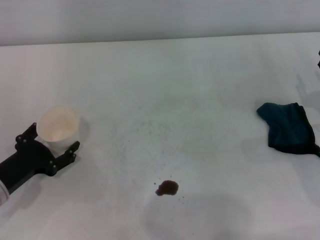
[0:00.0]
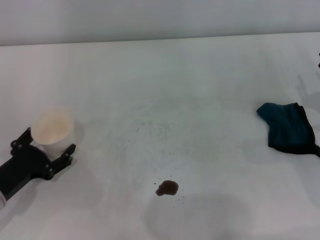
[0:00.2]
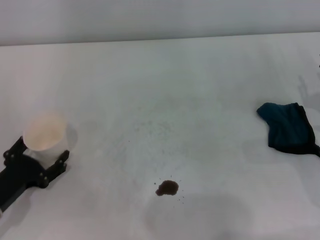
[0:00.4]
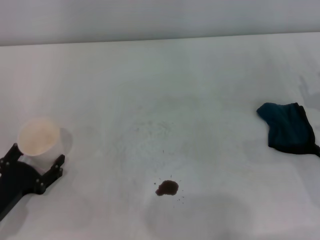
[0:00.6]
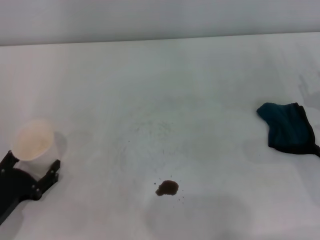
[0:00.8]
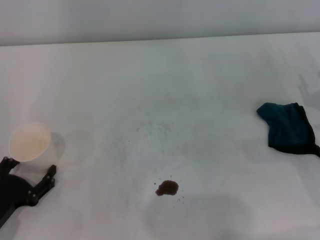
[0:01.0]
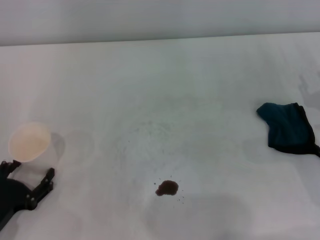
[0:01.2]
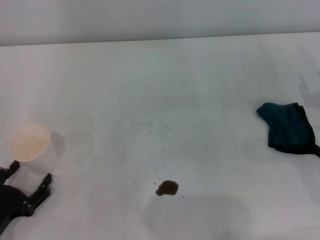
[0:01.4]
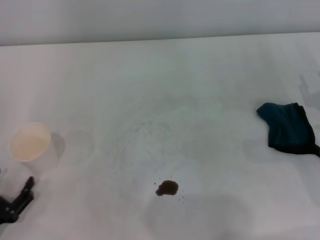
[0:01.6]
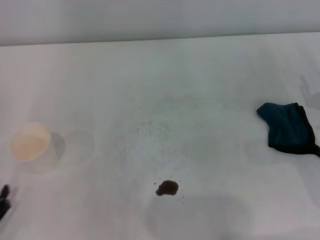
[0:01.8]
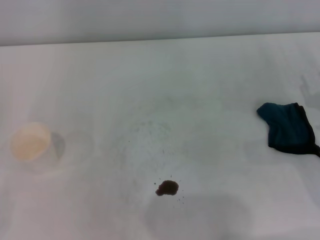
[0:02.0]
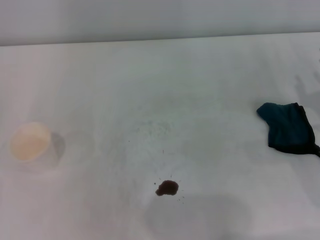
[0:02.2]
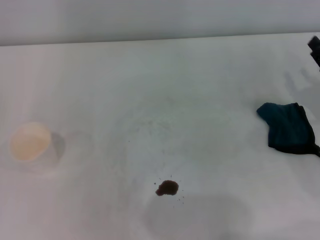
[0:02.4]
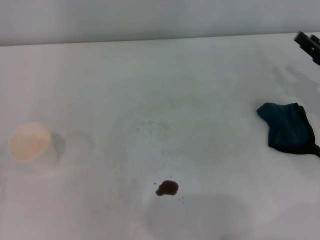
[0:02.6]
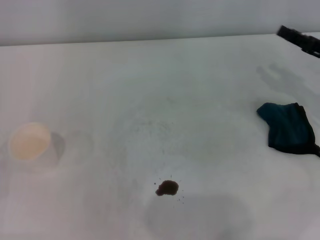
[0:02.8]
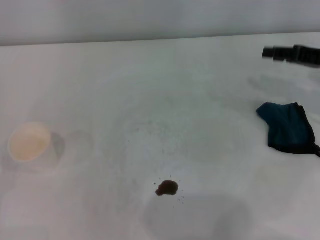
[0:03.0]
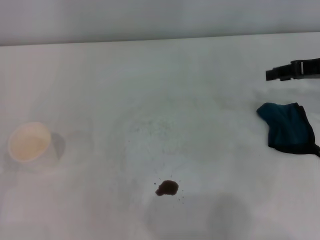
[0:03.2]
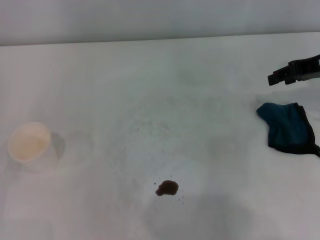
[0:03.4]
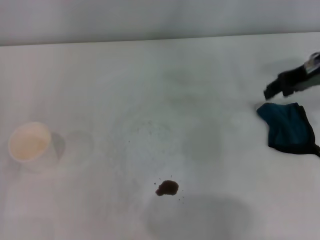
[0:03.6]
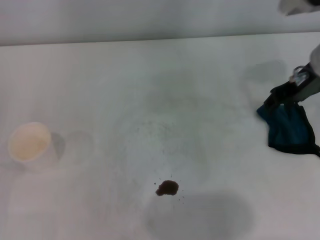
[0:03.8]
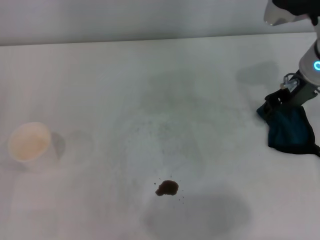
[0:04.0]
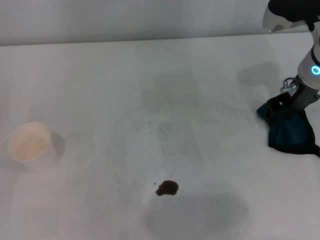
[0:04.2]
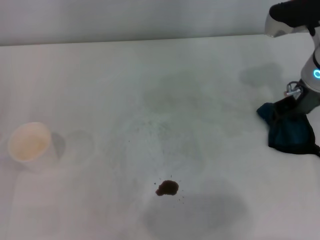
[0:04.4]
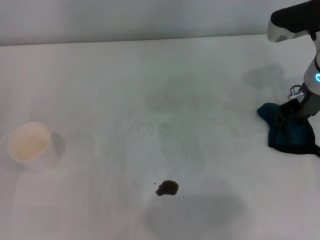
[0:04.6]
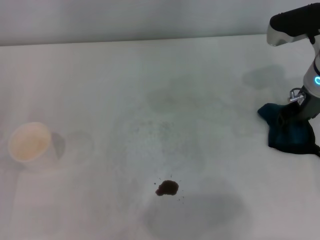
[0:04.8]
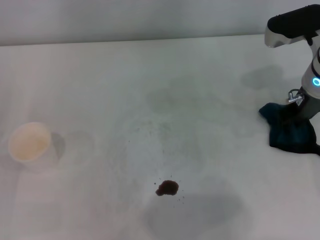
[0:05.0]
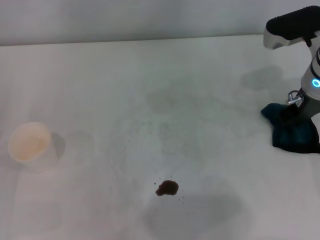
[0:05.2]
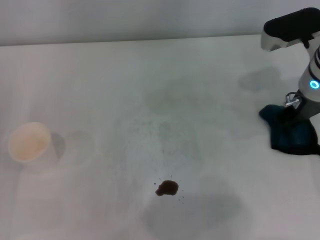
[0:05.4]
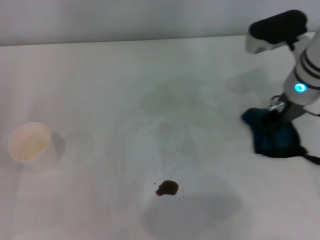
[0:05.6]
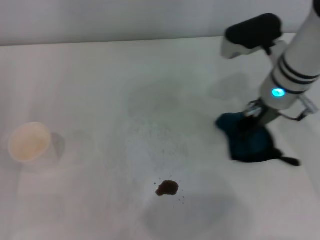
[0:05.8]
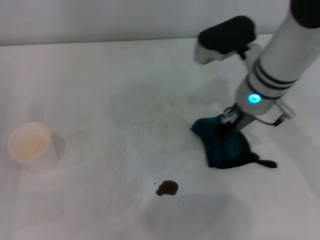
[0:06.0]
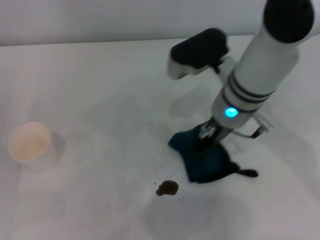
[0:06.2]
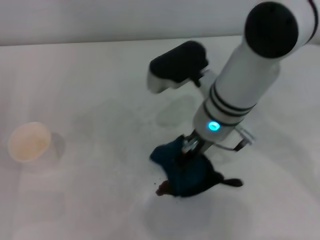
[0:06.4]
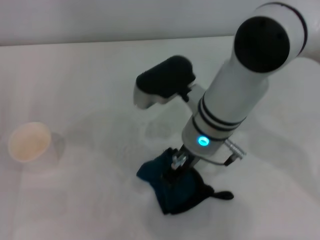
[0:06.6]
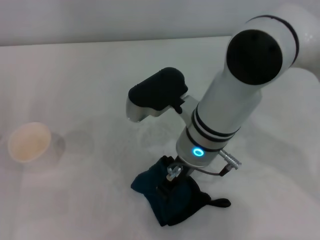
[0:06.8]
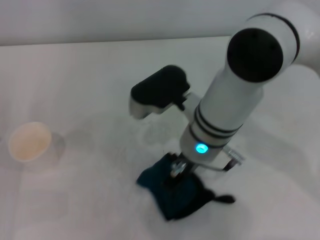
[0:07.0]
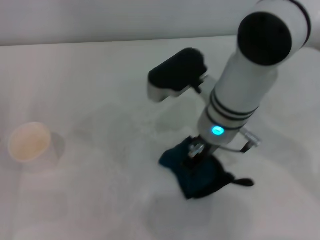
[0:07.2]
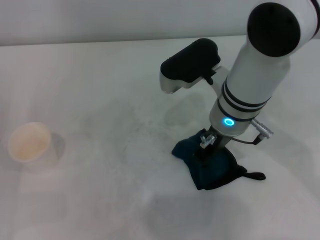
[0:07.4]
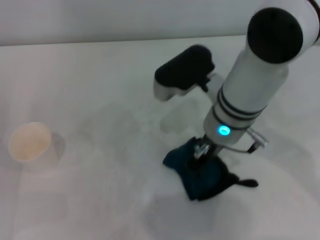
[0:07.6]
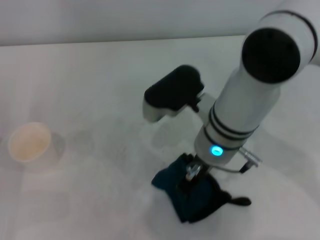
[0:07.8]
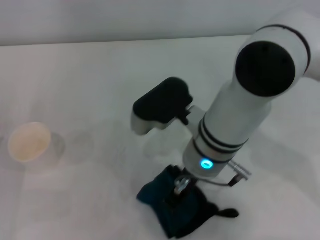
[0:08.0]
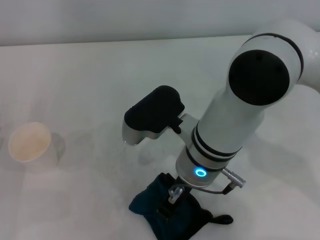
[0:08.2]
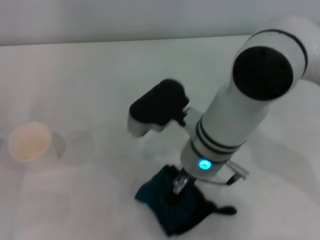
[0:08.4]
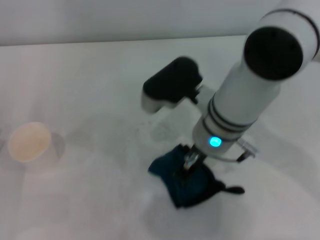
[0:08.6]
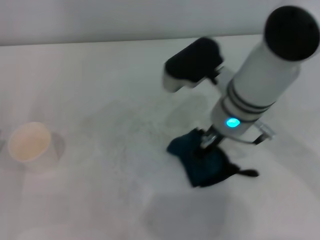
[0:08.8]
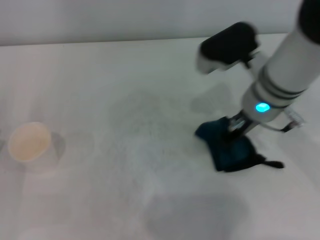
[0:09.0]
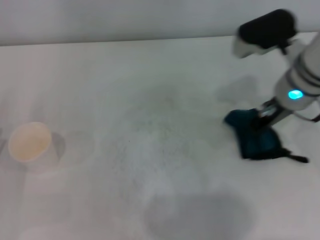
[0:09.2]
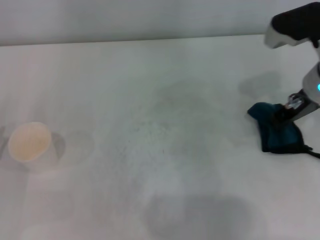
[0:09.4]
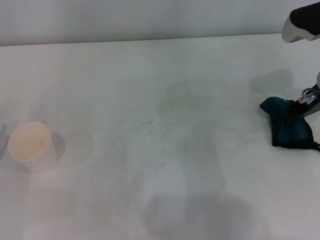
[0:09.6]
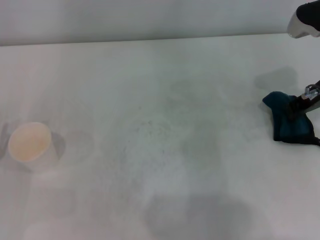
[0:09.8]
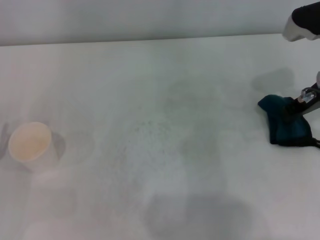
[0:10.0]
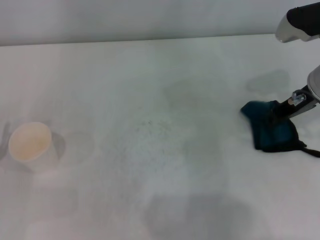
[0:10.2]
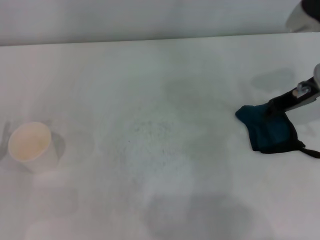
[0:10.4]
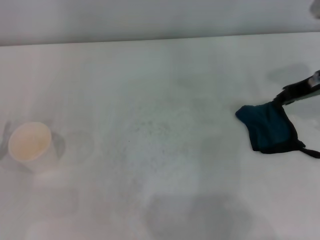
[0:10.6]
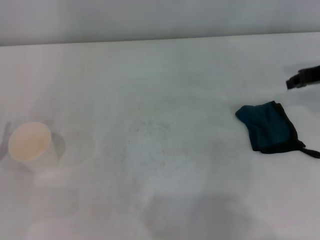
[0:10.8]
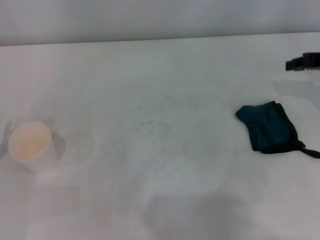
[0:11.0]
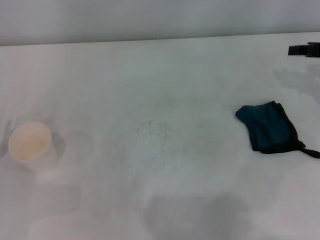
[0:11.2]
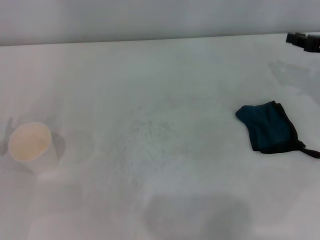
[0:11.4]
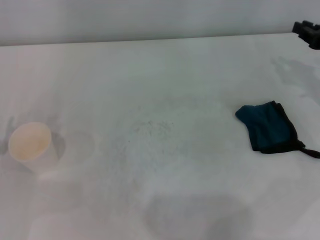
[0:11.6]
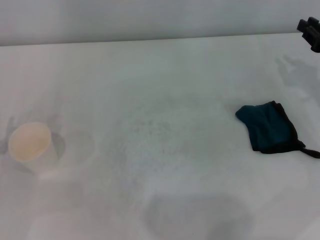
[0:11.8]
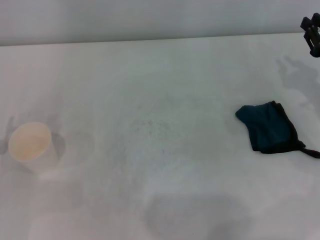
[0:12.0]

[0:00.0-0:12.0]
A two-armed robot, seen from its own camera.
Step, 0:01.0 to 0:05.2: Grasp the rag with the right gripper.
Step, 0:05.4 to 0:09.4: Wipe the stains off the table with the right gripper.
Step, 0:09.6 to 0:10.2: Place the rag on the table with the right gripper.
0:00.0 to 0:01.6: The left gripper moves backward, some 10 cm, and opens up.
0:01.6 to 0:03.0: The left gripper moves approximately 5 cm; the right gripper shifts about 10 cm upward and forward.
0:03.0 to 0:04.4: The right gripper heads to the left, covering approximately 10 cm.
0:04.4 to 0:06.0: The right gripper shifts approximately 10 cm to the left, and closes up.
0:06.0 to 0:07.6: The right gripper is displaced to the left by approximately 5 cm.
0:07.6 to 0:09.0: The right gripper is displaced to the right by some 5 cm.
0:09.0 to 0:10.4: The right gripper moves to the right, some 10 cm.
0:10.4 to 0:12.0: The right gripper is displaced to the right and downward by approximately 10 cm.

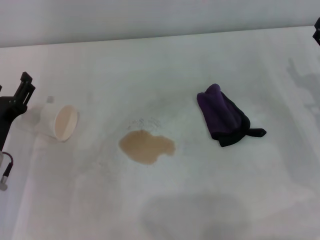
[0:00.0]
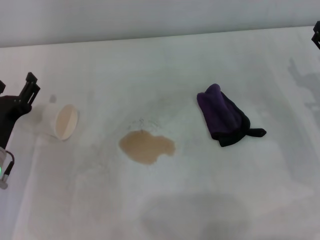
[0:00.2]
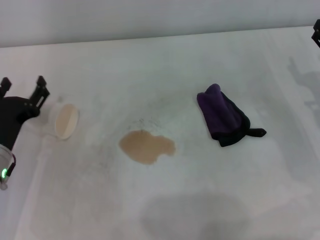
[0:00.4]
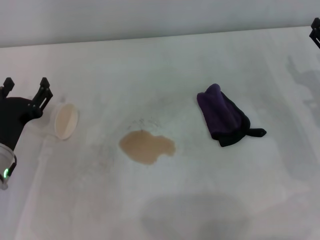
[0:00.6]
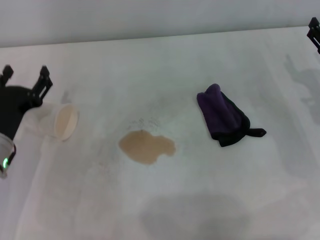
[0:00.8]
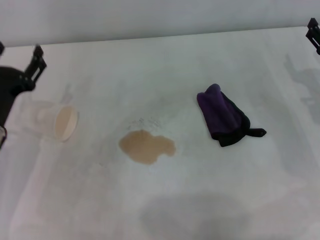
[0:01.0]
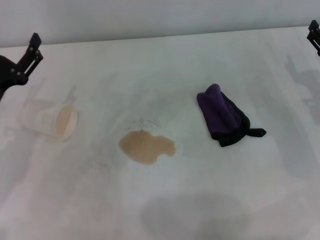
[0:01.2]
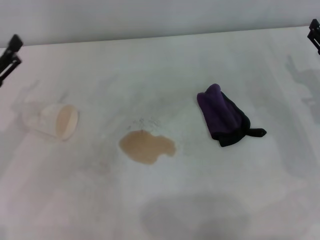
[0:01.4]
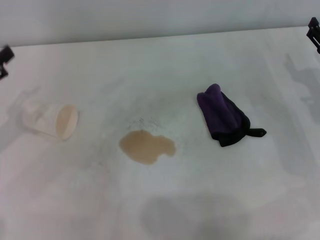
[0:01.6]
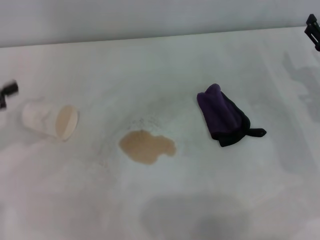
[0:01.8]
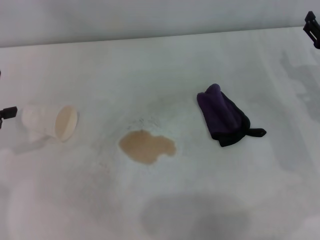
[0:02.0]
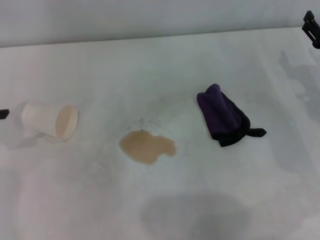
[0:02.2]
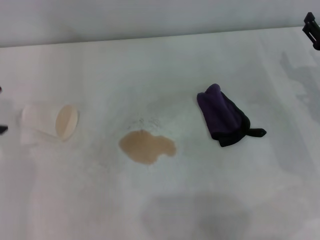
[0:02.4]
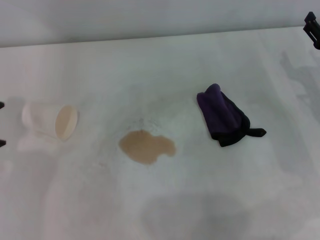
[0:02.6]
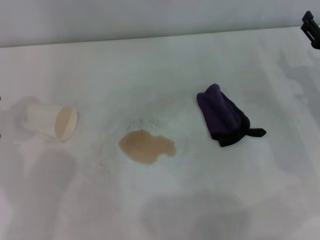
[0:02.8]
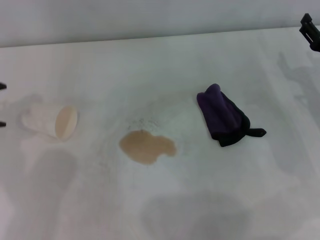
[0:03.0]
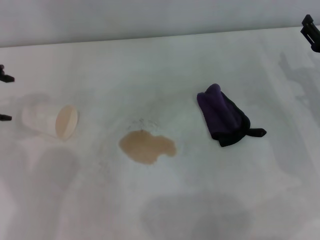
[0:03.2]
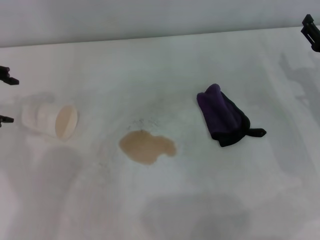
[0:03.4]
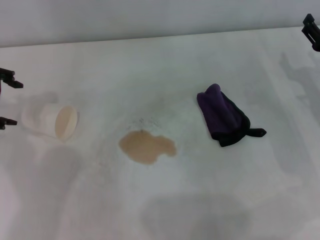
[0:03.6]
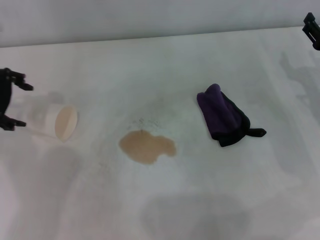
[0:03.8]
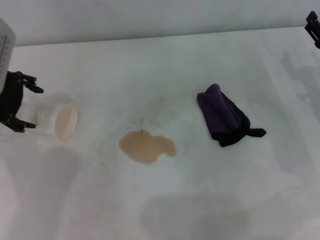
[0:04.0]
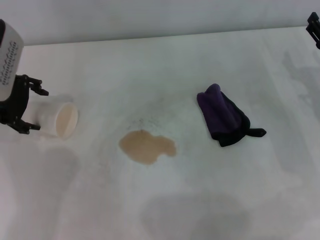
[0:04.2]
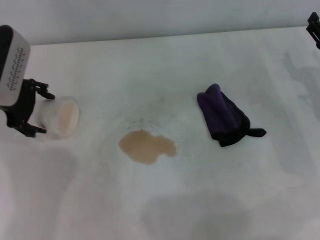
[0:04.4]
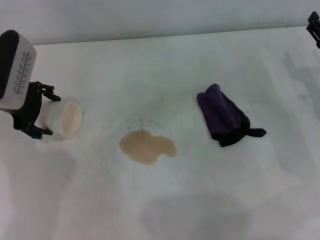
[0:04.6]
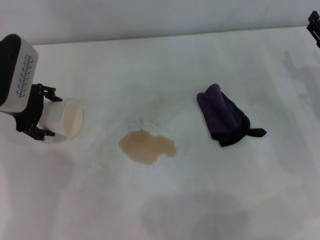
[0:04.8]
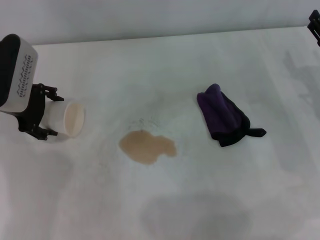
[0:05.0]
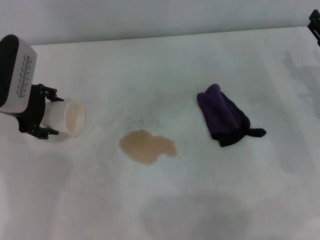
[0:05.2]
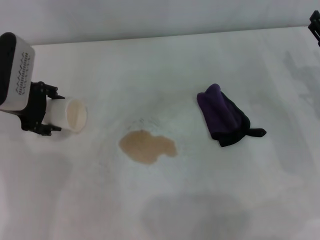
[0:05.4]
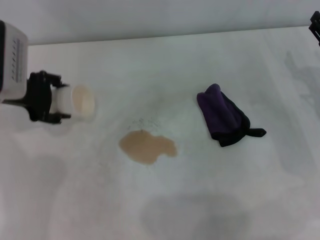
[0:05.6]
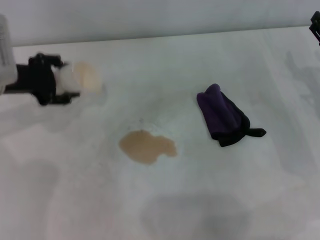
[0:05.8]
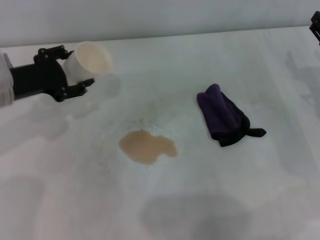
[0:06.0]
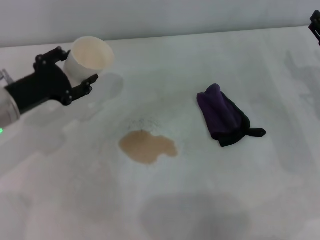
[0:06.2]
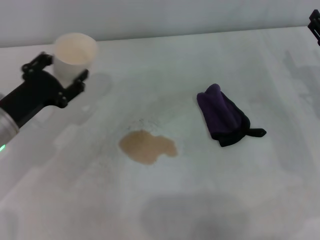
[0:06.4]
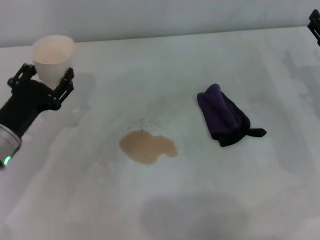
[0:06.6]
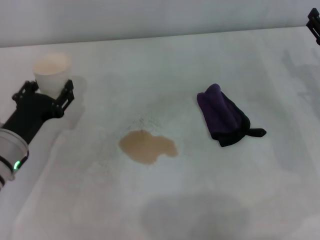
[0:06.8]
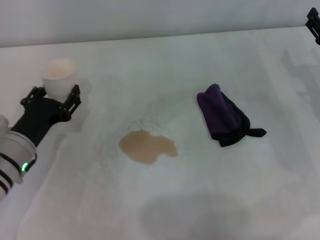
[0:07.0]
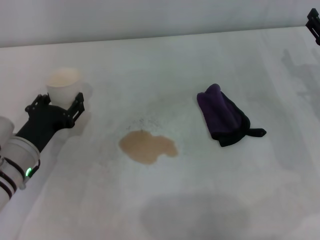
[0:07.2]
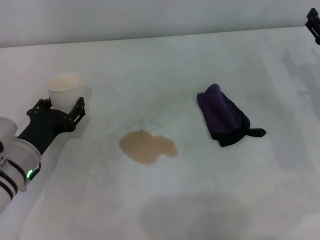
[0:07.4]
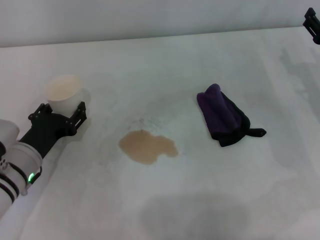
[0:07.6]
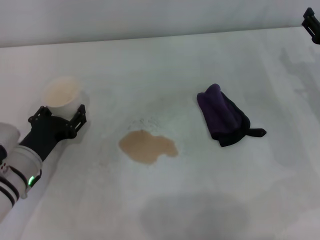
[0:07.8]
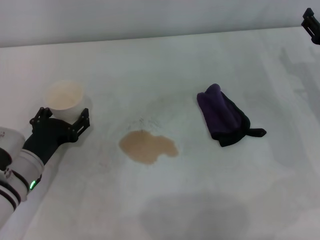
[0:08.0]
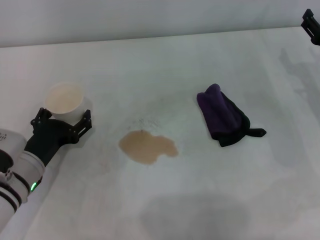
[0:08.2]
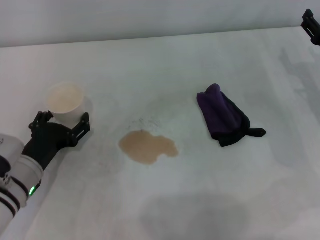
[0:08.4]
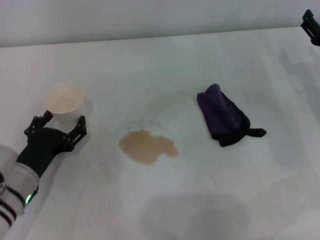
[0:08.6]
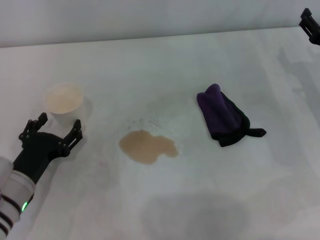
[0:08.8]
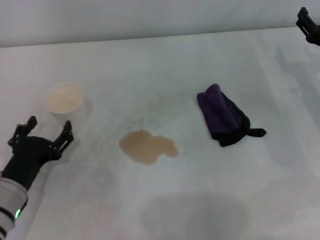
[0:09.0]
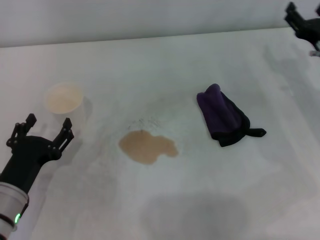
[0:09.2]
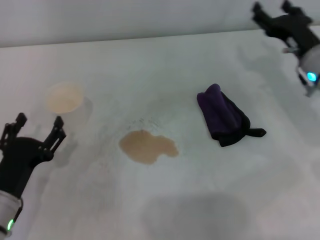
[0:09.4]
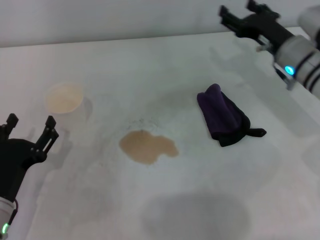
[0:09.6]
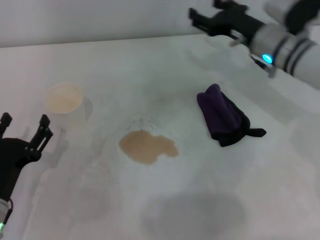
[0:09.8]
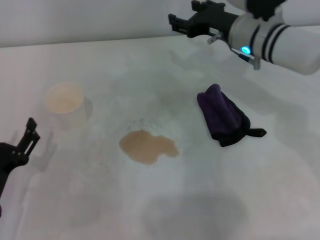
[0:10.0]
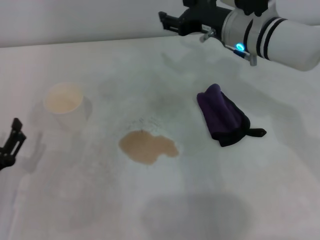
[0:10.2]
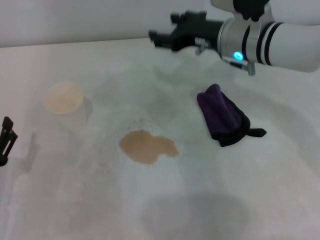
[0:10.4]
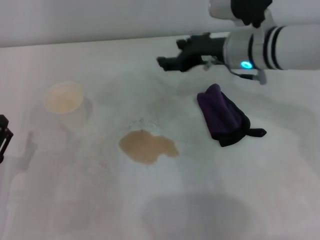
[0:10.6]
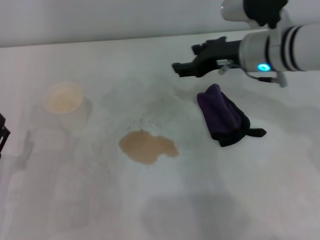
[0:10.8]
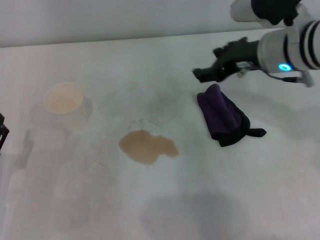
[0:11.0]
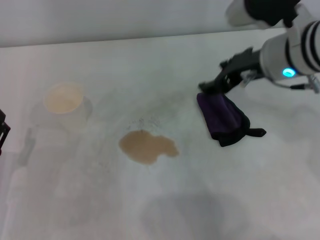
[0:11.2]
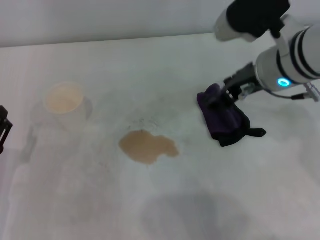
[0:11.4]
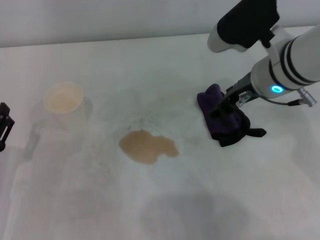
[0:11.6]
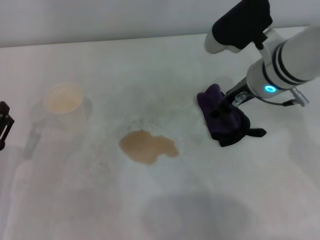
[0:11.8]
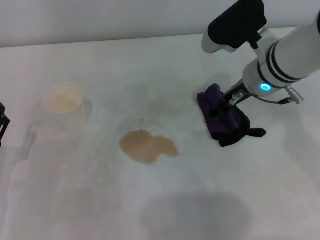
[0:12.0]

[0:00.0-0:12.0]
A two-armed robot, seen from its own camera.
Step, 0:00.0 to 0:04.8: Grasp the paper cup with the left gripper.
Step, 0:05.0 to 0:08.4: Stand the paper cup upright with the left gripper.
0:00.0 to 0:01.6: The left gripper is displaced upward and to the left by approximately 15 cm.
0:03.0 to 0:04.4: The left gripper goes roughly 10 cm to the right and downward.
0:04.4 to 0:06.0: The left gripper closes its fingers.
0:06.0 to 0:07.6: The left gripper shifts roughly 15 cm downward and backward.
0:07.6 to 0:09.0: The left gripper moves backward, about 5 cm, and opens its fingers.
0:09.0 to 0:10.4: The left gripper shifts by some 5 cm. Meanwhile the right gripper is displaced to the left and upward by some 20 cm.
